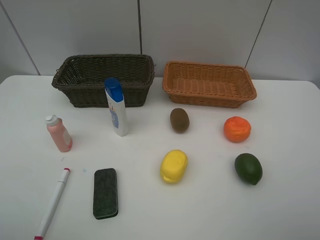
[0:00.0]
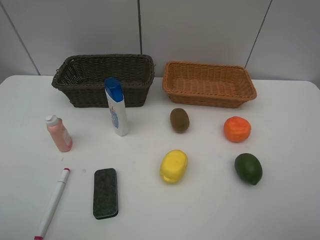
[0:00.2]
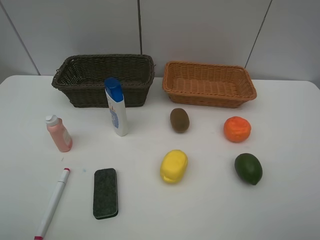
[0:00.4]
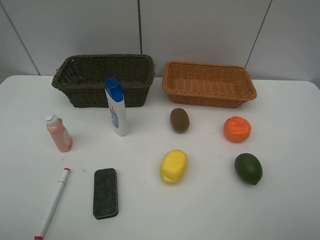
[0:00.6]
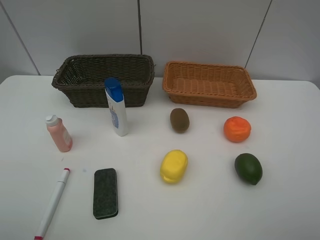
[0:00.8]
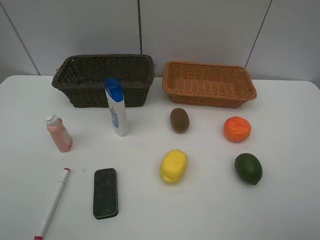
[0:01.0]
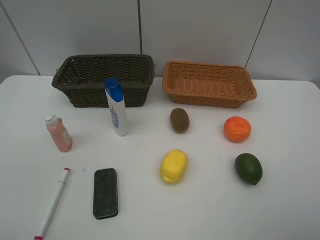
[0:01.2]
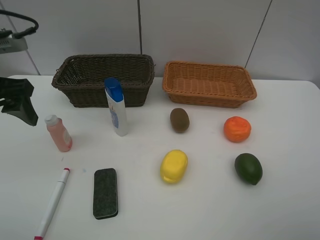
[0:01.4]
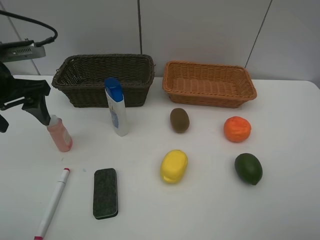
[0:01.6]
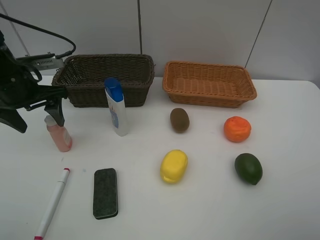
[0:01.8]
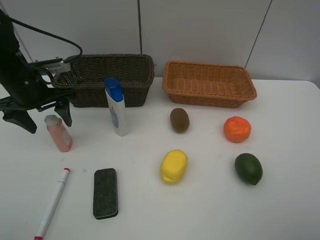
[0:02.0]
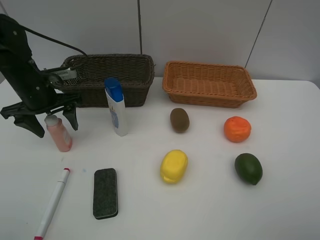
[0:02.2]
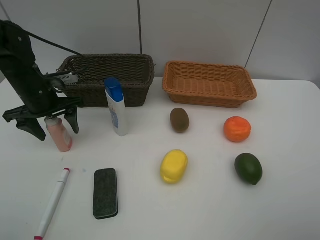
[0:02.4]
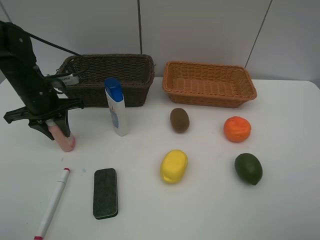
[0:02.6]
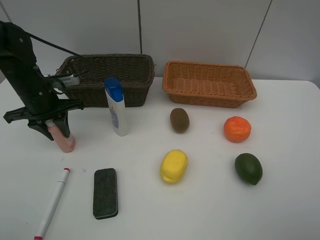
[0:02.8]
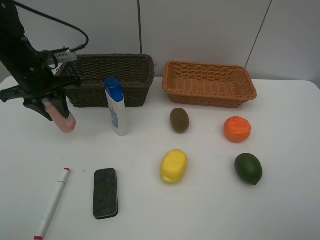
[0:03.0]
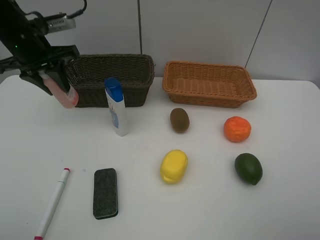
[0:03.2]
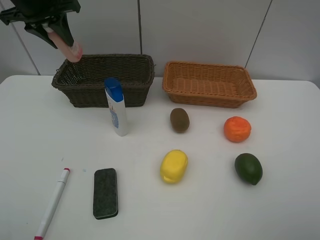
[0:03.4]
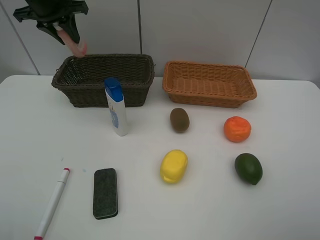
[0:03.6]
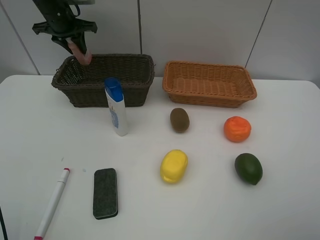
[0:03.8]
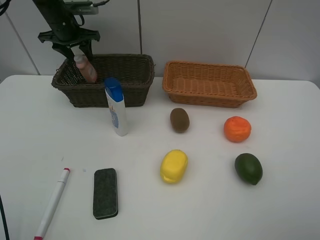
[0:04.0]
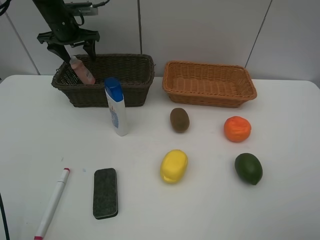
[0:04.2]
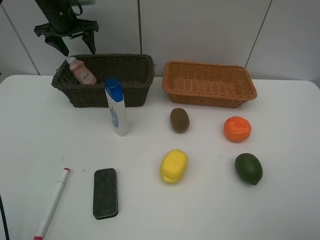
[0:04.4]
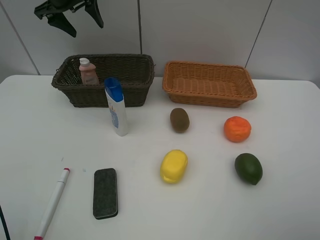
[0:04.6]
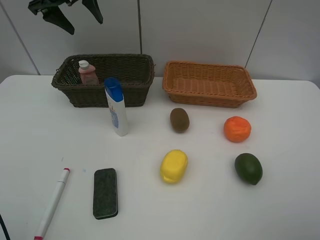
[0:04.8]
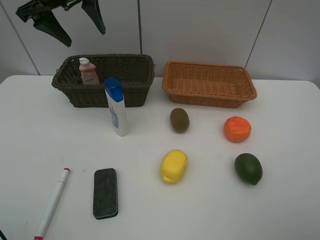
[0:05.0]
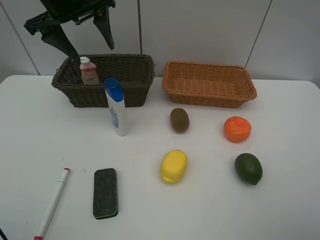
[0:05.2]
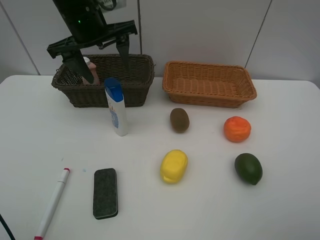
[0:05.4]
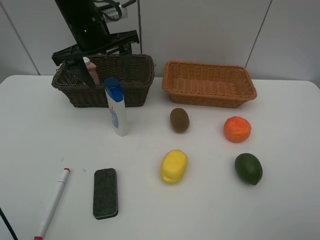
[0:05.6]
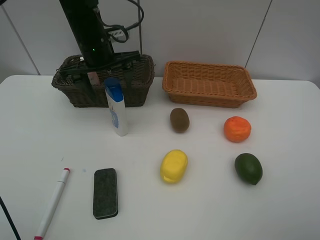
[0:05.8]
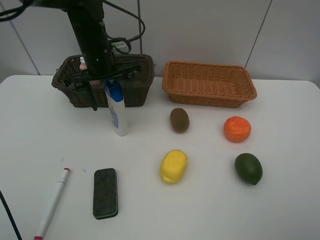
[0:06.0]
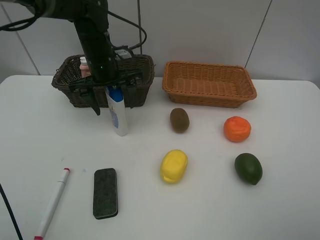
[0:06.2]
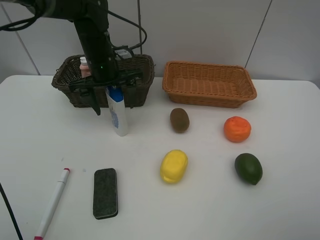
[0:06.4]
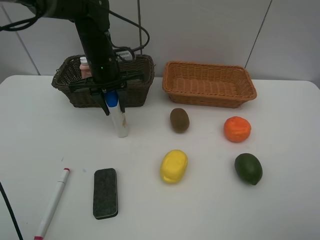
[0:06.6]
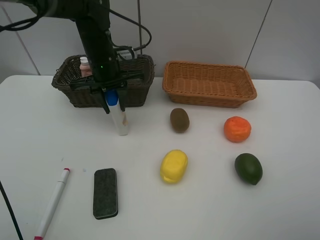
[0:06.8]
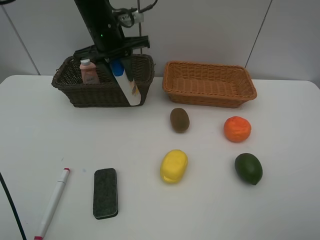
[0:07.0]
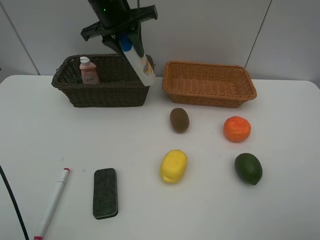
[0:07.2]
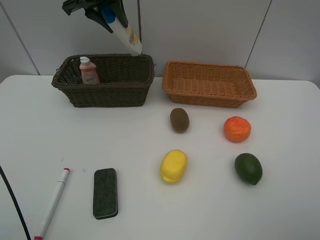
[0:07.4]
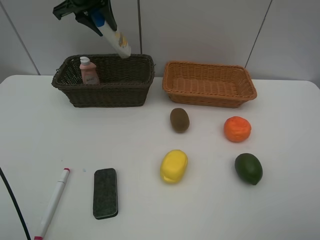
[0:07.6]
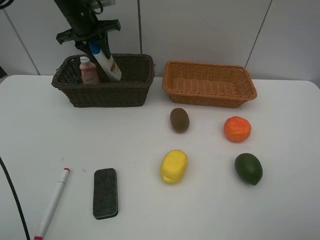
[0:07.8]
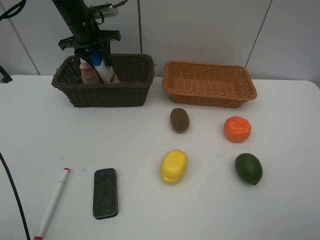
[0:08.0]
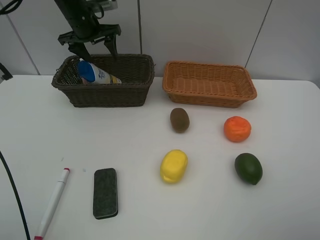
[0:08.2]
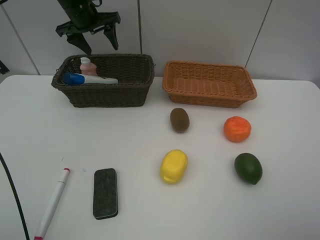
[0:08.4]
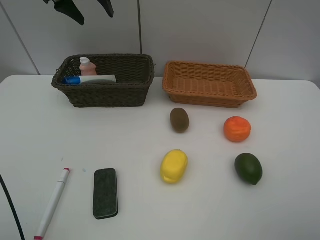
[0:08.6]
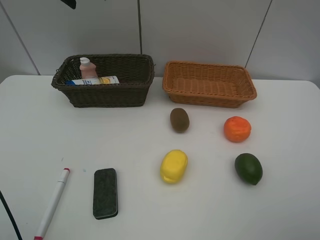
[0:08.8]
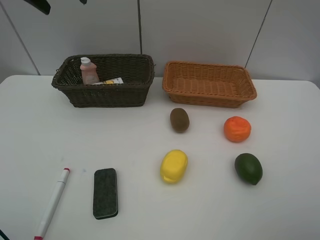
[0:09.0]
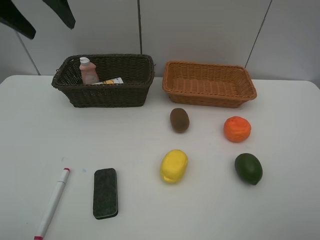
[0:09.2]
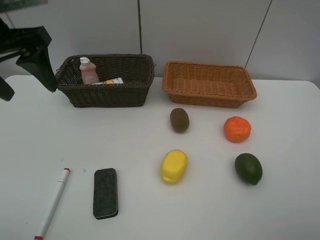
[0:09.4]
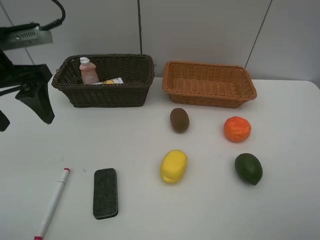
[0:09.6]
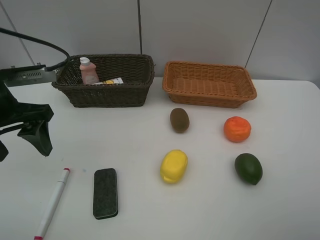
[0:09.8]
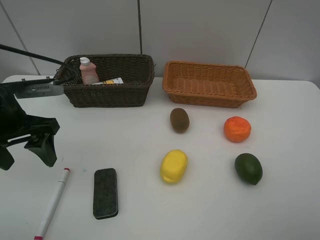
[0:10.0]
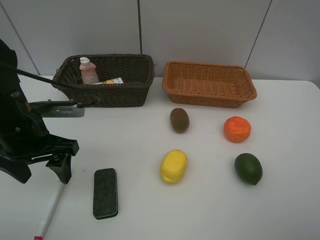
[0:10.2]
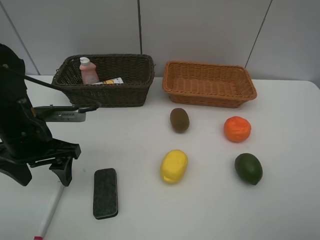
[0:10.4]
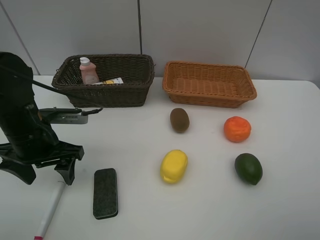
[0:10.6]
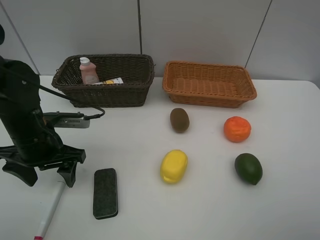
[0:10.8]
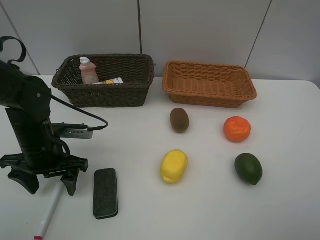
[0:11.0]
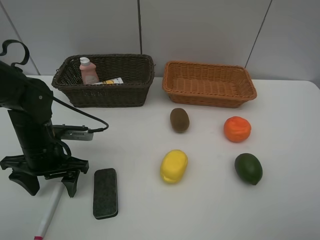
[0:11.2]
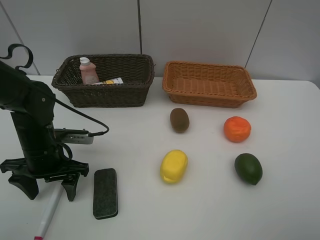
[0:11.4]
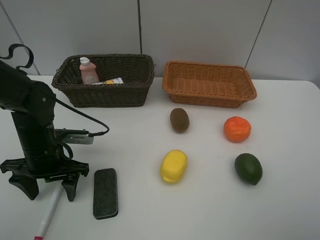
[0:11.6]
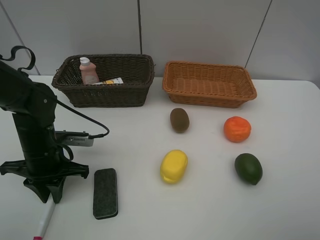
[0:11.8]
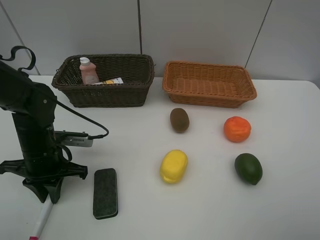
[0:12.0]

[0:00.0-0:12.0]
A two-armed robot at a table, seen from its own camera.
Task of the whole recording: Place multiple objects separately in different baskets.
Step, 0.0 to 2.8 s: Pick up the laundry detergent with left gripper.
Step, 3.0 to 4.0 s: Place the laundry detergent in the dark basket with left gripper.
Step, 4.2 to 6.8 s: Pick up the shampoo with left gripper.
Step, 7.0 to 8.2 s: Place the shampoo in the dark basket with left gripper.
0.0 to 1.6 s: The left gripper heads forward, covering about 30 cm.
1.6 to 3.0 s: The left gripper moves forward, roughly 5 cm, travels downward and back again, approximately 10 cm each way, and closes its fingers.
3.0 to 4.4 s: The left gripper shifts approximately 15 cm forward, and opens up.
4.4 to 6.0 s: The left gripper shifts roughly 20 cm backward, to the right and downward.
6.0 to 7.6 s: The left gripper shifts about 15 cm upward, forward and to the left, and closes up.
7.6 to 9.0 s: The left gripper moves backward and upward, about 15 cm, and opens.
9.0 to 10.4 s: The left gripper shifts approximately 30 cm downward and backward.
10.4 to 12.0 s: The left gripper is displaced downward by approximately 5 cm, and closes its fingers.

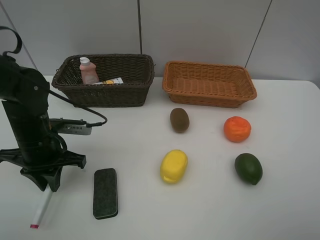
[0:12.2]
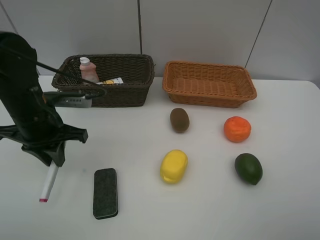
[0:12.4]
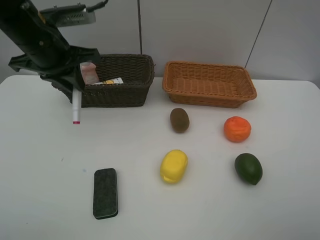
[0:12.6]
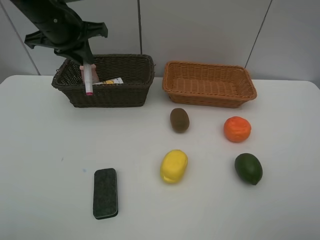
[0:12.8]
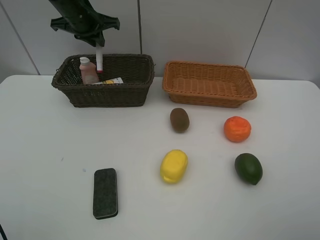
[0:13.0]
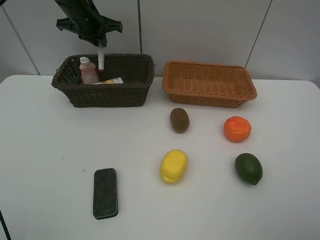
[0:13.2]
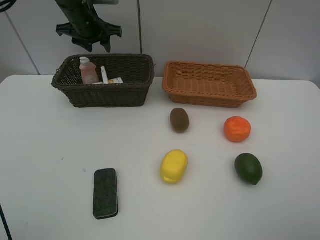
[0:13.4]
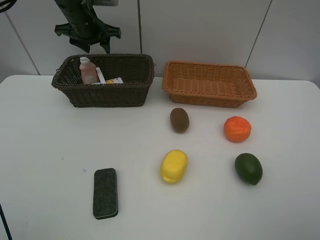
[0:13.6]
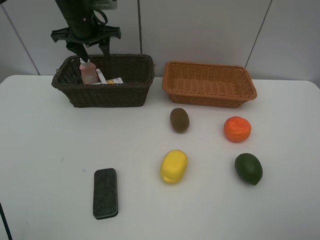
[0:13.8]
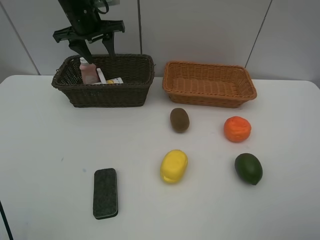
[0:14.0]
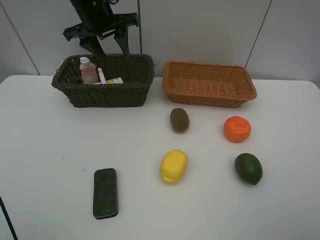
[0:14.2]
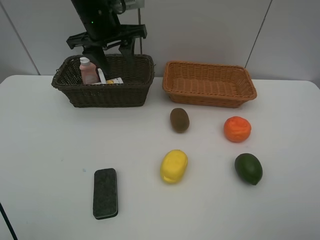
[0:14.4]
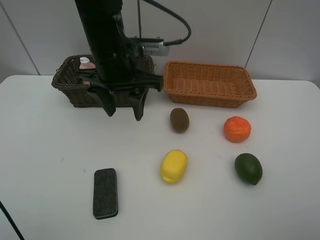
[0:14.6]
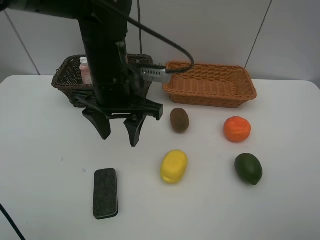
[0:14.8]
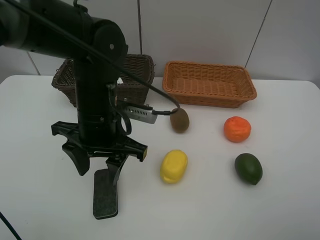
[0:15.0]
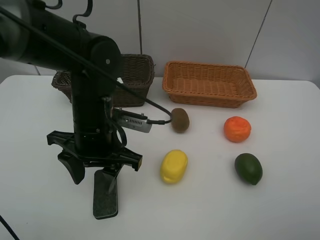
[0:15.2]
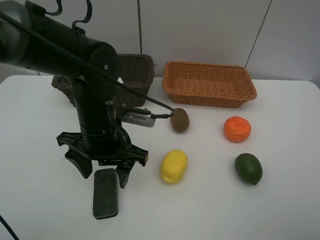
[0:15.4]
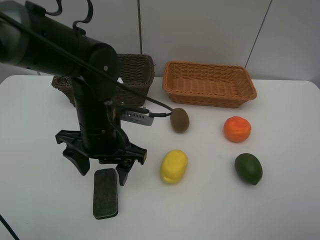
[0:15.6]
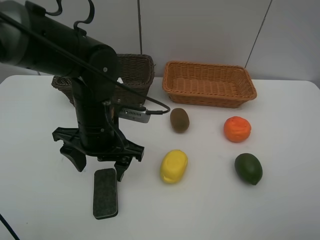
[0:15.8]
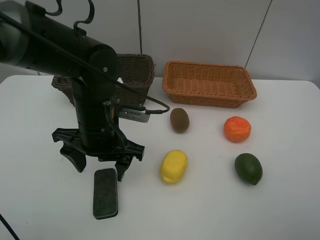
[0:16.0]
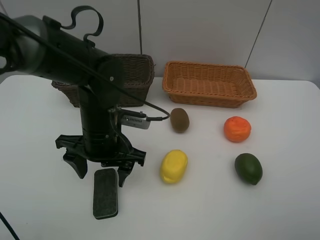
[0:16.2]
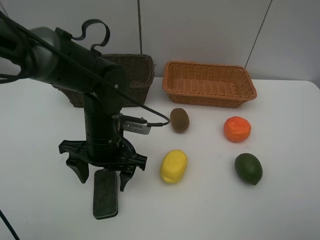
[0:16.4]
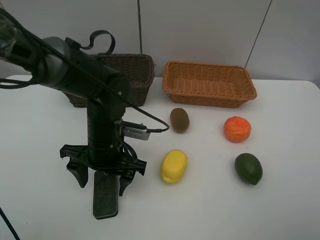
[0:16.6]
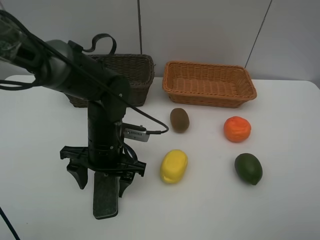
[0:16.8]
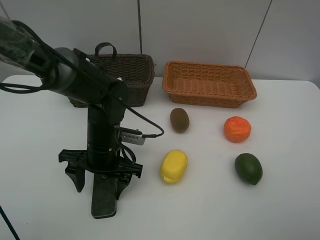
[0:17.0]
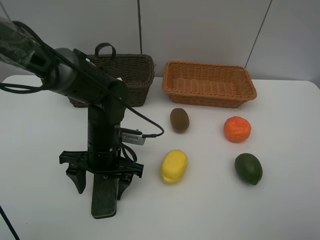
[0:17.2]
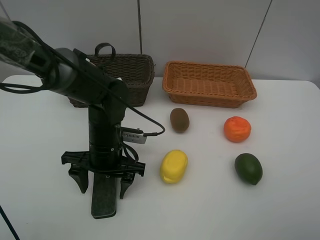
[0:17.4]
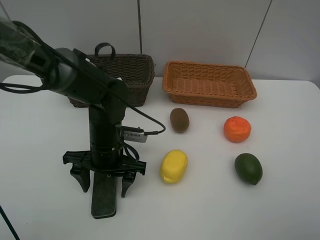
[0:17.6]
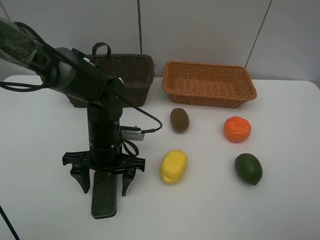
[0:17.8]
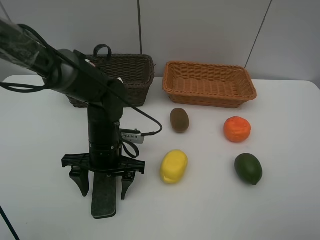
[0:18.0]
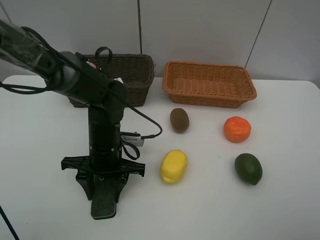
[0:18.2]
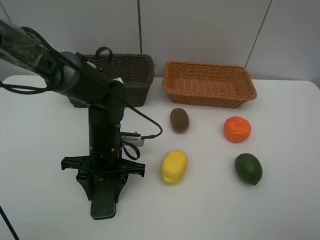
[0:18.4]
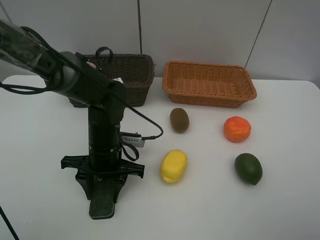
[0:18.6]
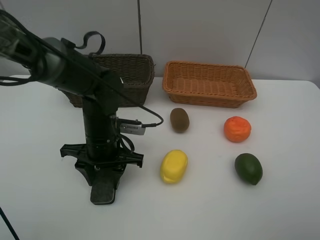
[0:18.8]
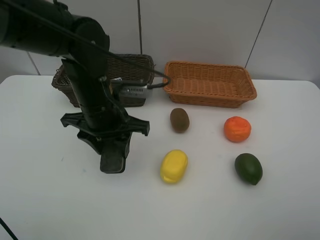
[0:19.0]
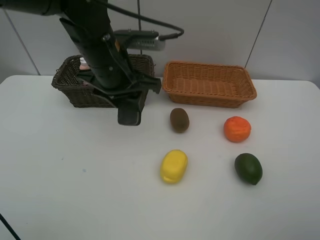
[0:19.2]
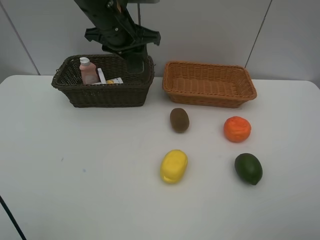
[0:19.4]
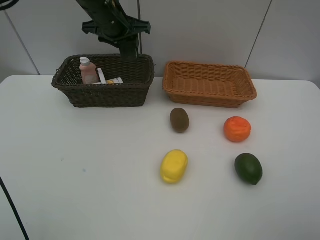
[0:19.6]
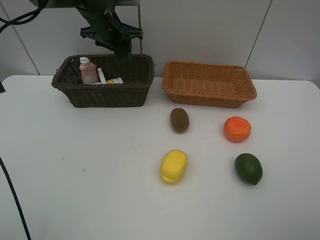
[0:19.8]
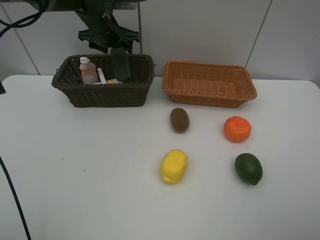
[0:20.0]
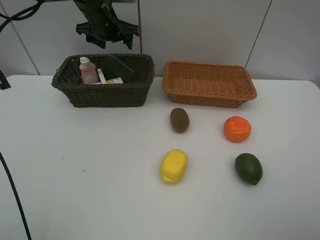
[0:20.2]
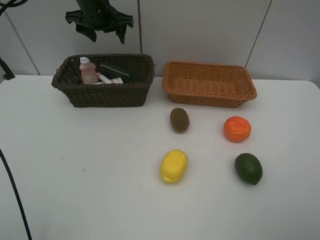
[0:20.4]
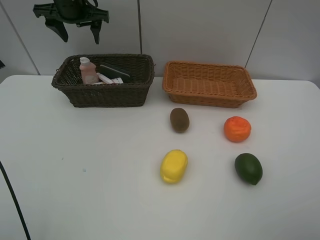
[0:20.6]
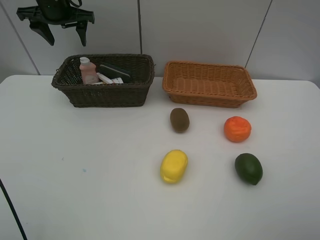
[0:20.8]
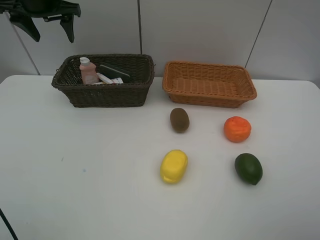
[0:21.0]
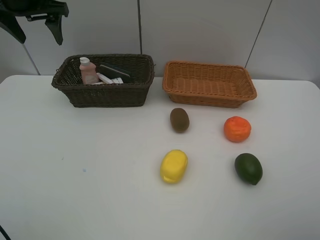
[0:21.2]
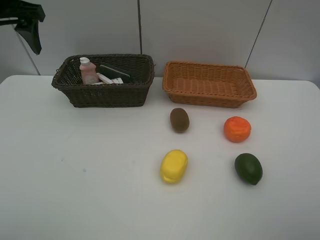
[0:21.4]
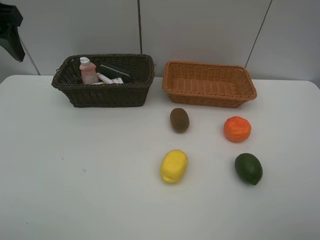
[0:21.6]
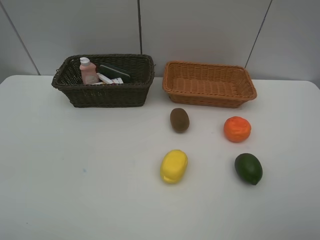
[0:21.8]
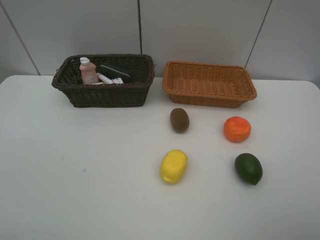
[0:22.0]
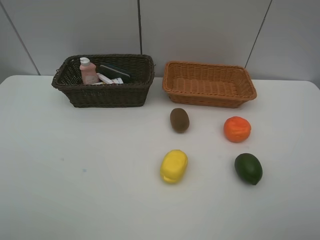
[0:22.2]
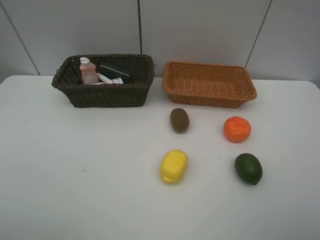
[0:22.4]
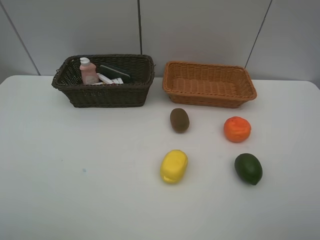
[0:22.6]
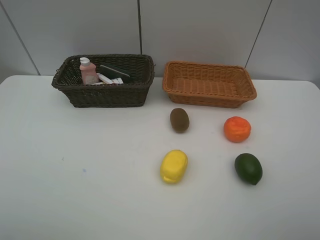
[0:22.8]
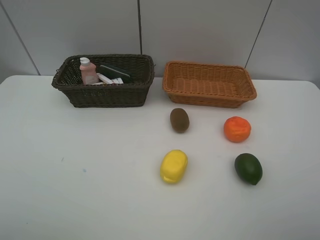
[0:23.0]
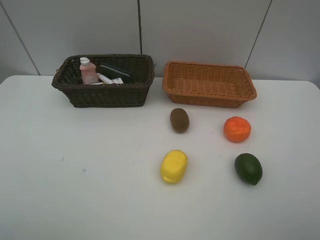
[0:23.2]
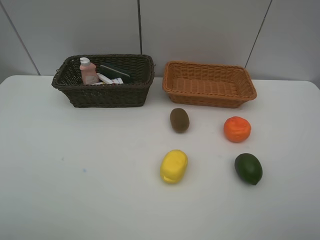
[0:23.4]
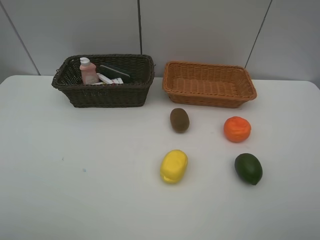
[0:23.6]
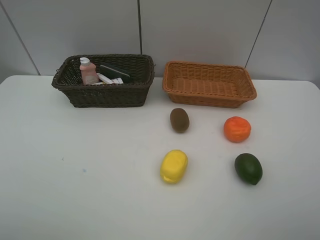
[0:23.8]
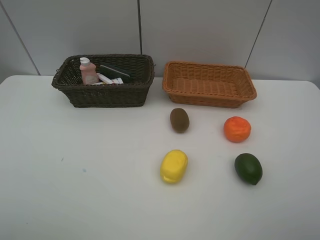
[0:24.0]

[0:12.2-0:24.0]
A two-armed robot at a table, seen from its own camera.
Task of the whole recording: Place multiple objects separately in different baskets.
Step, 12.4 to 13.4 s: Place the red marker in the dark basket with left gripper.
Step, 13.6 to 18.8 s: Pick up blackboard eraser with left gripper.
Step, 19.0 to 20.0 s: Place the blackboard eraser in the dark basket with left gripper.
12.2 to 13.6 s: The left gripper moves forward and upward, approximately 25 cm, and opens up.
13.6 to 15.2 s: The left gripper heads backward, covering roughly 25 cm.
15.2 to 16.6 s: The left gripper shifts about 5 cm downward.
16.6 to 18.2 s: The left gripper closes.
18.2 to 19.6 s: The left gripper goes about 30 cm forward and upward.
19.6 to 21.0 s: The left gripper travels to the left and upward by some 15 cm, and opens.
21.0 to 22.6 s: The left gripper shifts about 50 cm backward.
22.6 to 24.0 s: Both grippers stay put.
